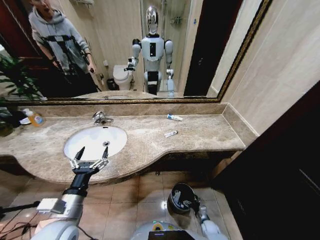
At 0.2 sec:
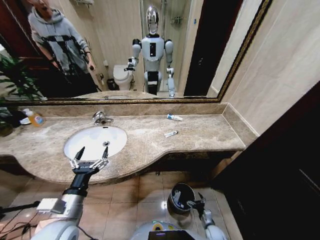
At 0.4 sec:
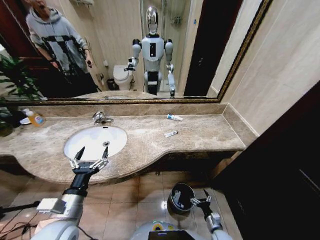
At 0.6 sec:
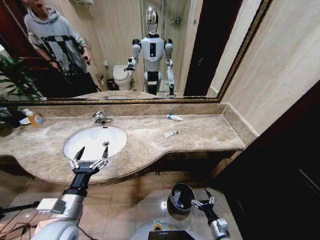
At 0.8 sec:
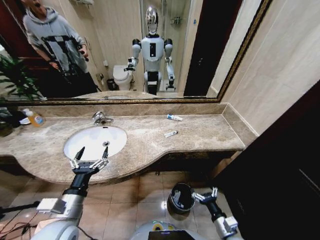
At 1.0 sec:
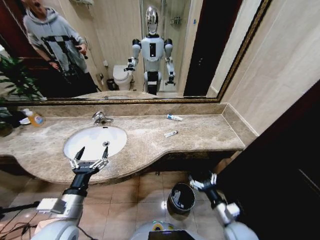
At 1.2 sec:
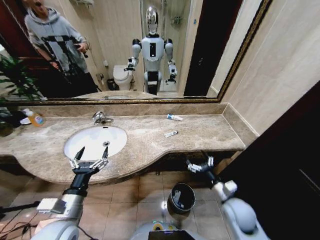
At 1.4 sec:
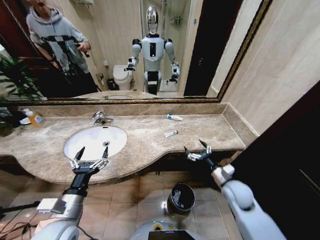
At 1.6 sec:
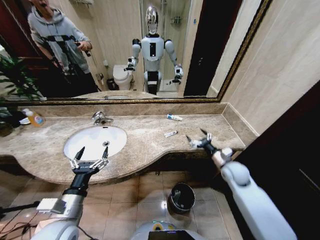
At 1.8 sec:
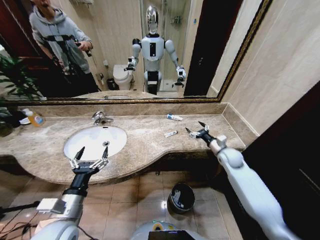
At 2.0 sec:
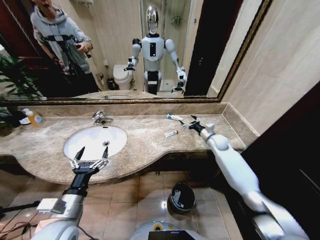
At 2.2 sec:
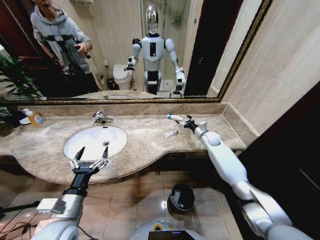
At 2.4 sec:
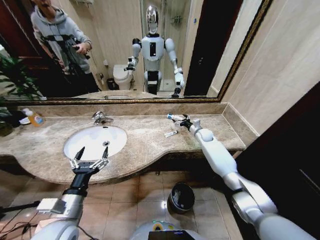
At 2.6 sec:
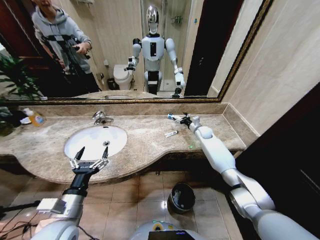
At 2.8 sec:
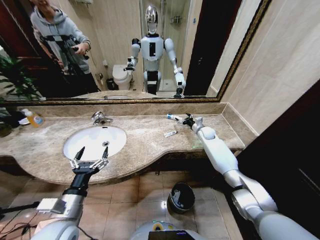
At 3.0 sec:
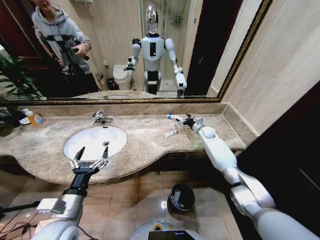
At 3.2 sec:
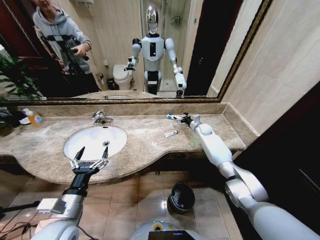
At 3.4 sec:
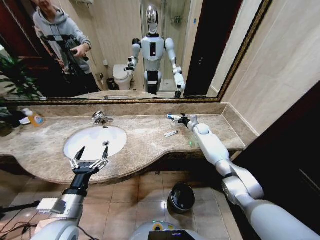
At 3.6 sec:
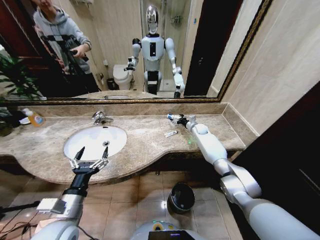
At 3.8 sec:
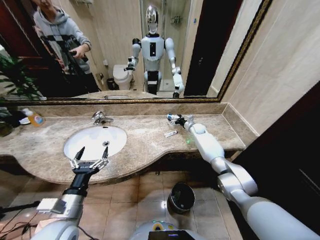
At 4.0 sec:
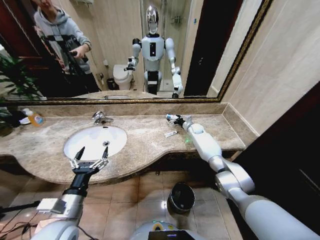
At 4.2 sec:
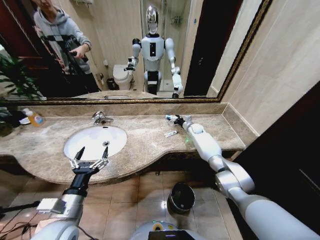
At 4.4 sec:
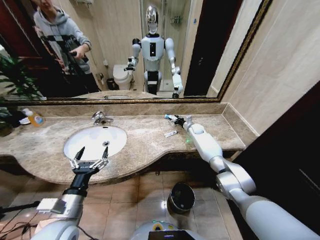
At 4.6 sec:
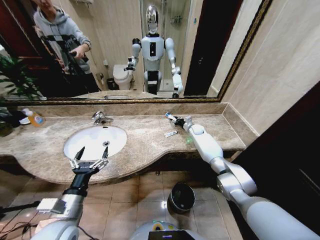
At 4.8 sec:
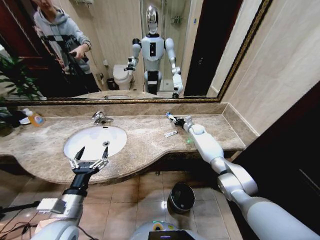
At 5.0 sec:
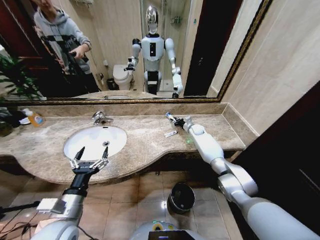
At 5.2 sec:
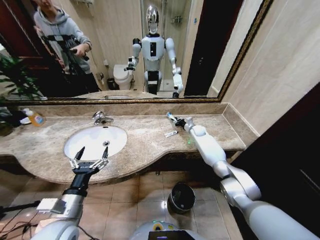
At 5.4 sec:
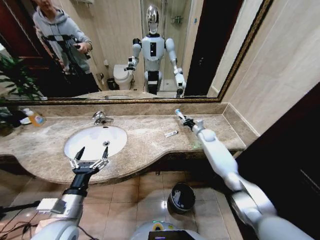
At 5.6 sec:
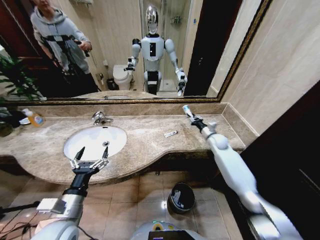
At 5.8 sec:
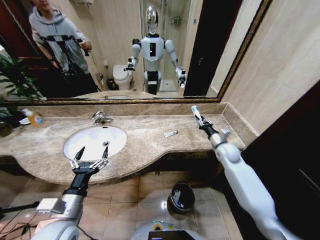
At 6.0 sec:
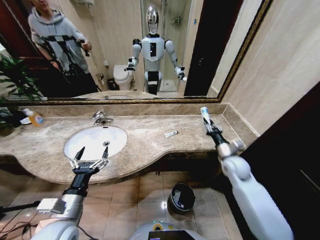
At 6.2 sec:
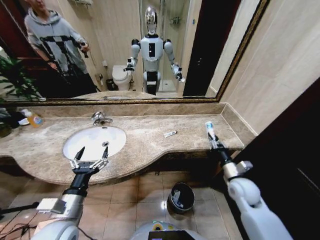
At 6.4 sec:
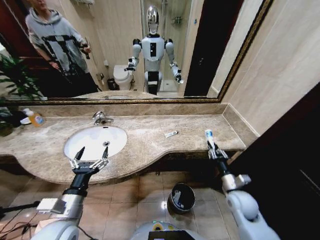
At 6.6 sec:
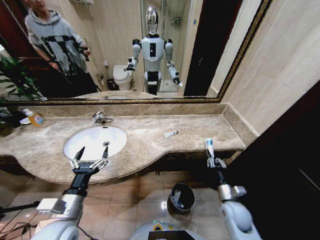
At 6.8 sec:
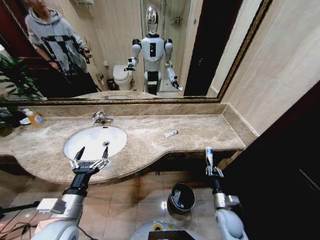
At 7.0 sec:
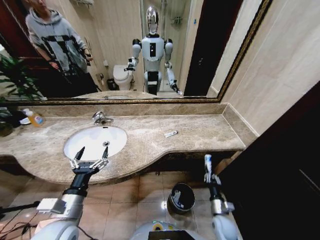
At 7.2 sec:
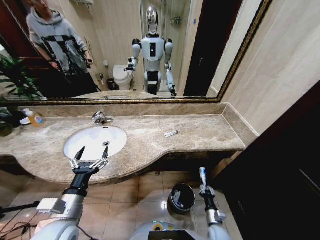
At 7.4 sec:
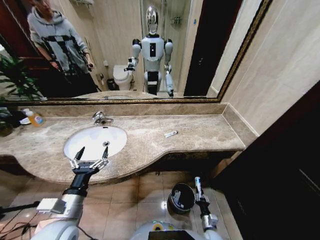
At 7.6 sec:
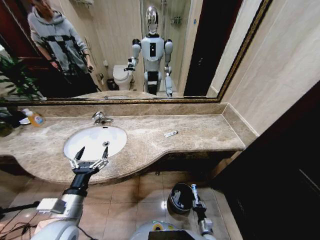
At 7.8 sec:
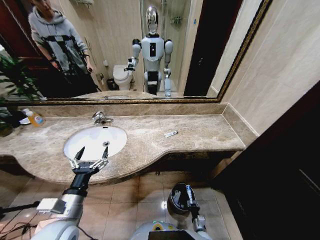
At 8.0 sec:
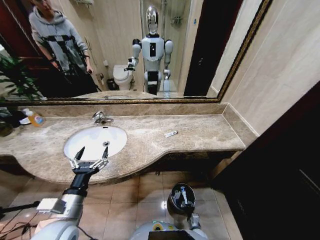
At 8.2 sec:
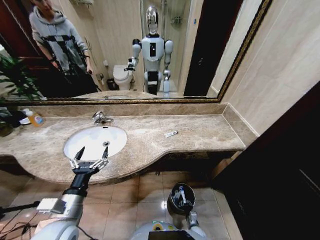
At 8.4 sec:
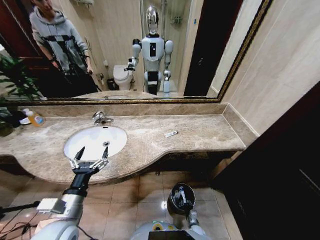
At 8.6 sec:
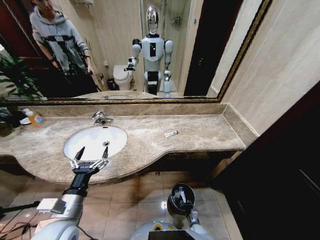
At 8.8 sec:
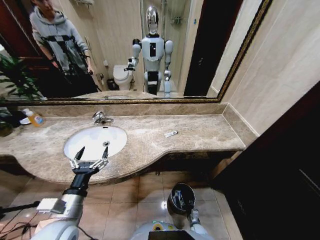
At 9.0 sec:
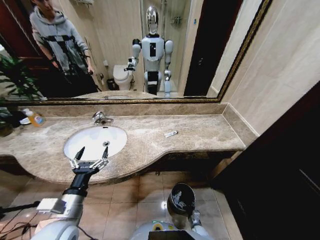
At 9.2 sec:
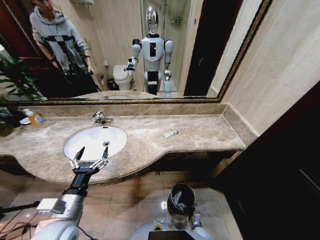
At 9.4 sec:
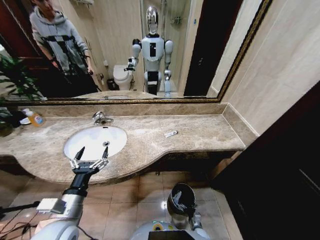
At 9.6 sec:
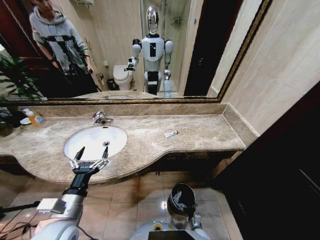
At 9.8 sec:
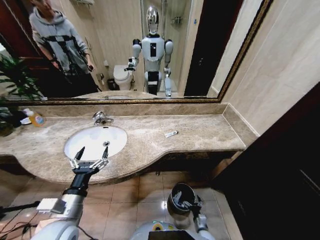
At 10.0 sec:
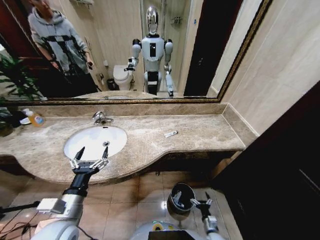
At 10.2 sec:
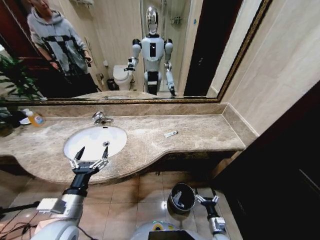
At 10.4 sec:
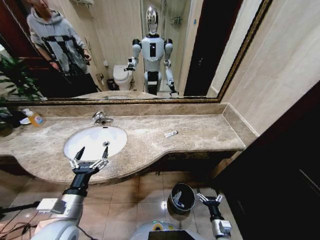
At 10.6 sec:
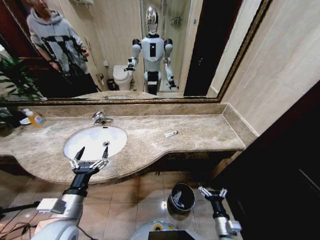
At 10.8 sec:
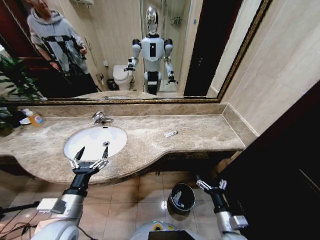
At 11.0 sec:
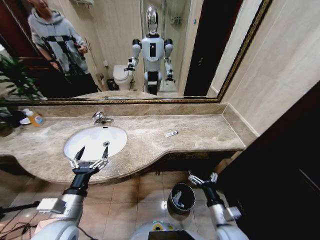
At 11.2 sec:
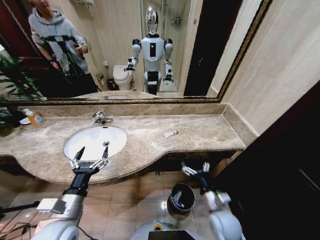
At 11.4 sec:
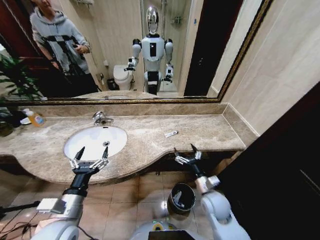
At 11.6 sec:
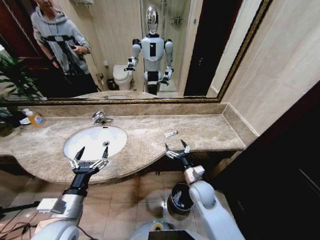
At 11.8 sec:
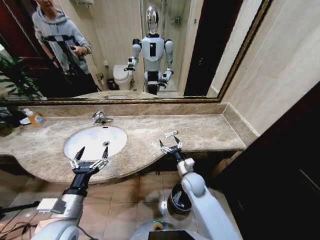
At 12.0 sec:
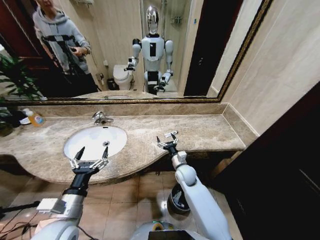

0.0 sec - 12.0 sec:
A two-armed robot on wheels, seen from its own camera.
Task of the whole recording: Pick up the trash from the sink and place it in the trash bin.
0.0 sec - 1.6 sec: The right gripper shifts approximately 40 cm upward and forward.
1.6 sec - 3.0 sec: The right gripper is displaced forward by approximately 25 cm.
3.0 sec - 4.4 sec: The right gripper ends up approximately 5 cm from where it was, and closes up.
4.4 sec - 6.0 sec: The right gripper travels backward by some 30 cm, and closes its fingers.
6.0 sec - 7.6 sec: The right gripper travels downward and backward by roughly 50 cm.
7.6 sec - 9.0 sec: The right gripper changes place by some 5 cm, and opens up.
9.0 sec - 10.4 sec: The right gripper goes approximately 20 cm upward.
10.4 sec - 12.0 sec: The right gripper goes some 35 cm forward, upward and to the left.

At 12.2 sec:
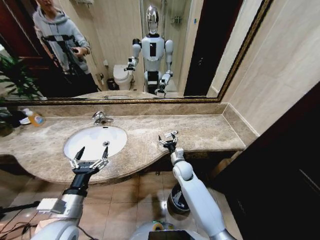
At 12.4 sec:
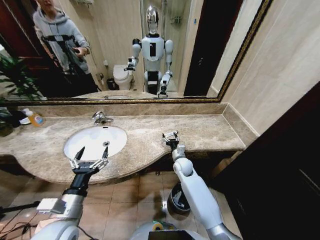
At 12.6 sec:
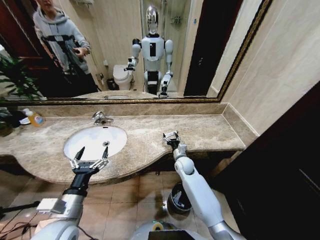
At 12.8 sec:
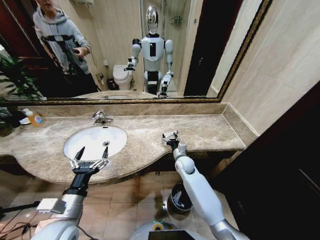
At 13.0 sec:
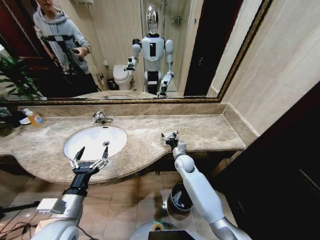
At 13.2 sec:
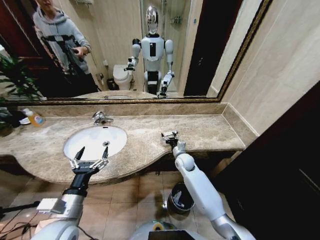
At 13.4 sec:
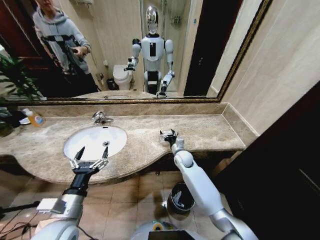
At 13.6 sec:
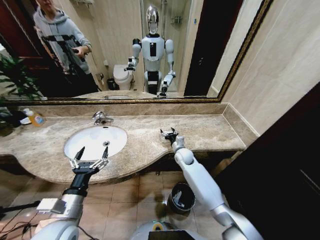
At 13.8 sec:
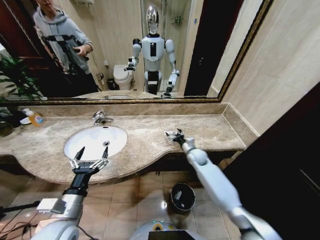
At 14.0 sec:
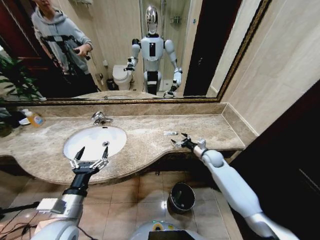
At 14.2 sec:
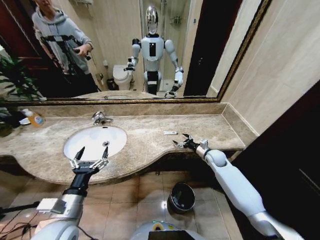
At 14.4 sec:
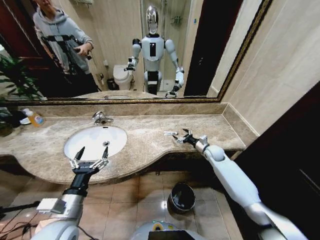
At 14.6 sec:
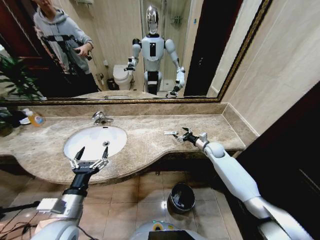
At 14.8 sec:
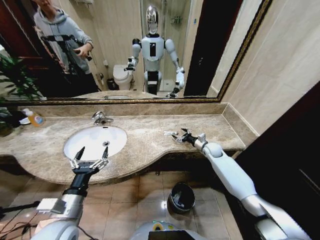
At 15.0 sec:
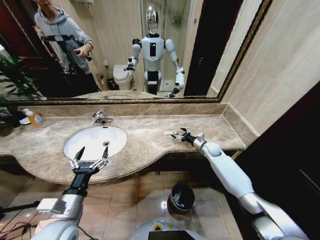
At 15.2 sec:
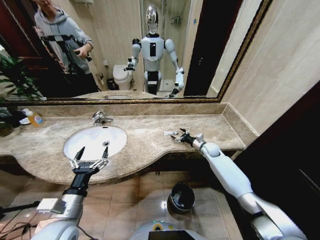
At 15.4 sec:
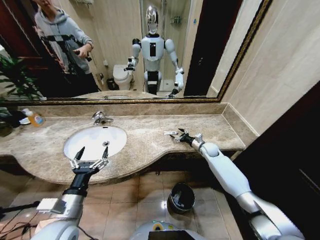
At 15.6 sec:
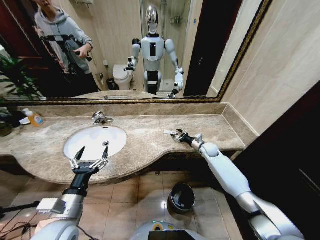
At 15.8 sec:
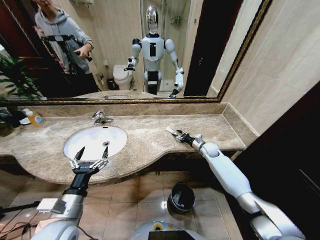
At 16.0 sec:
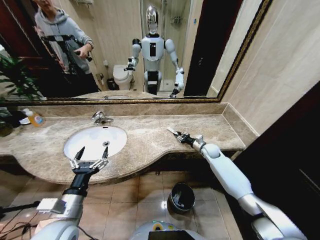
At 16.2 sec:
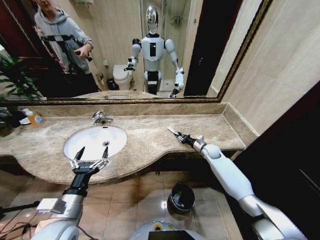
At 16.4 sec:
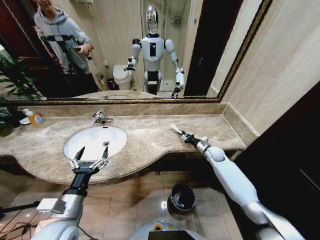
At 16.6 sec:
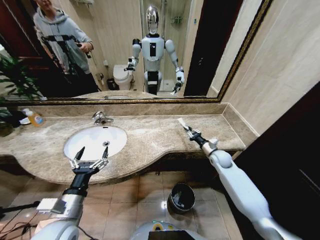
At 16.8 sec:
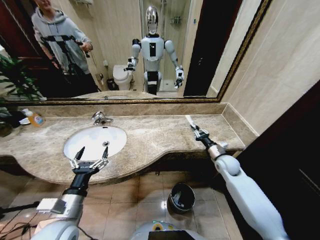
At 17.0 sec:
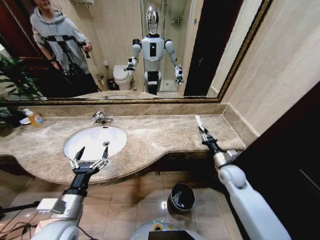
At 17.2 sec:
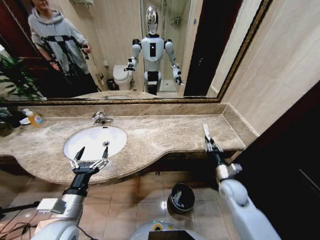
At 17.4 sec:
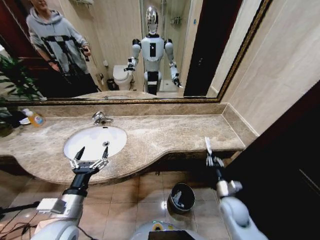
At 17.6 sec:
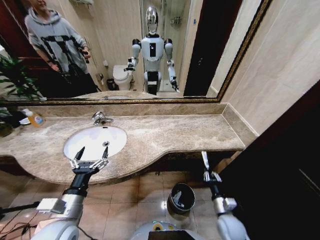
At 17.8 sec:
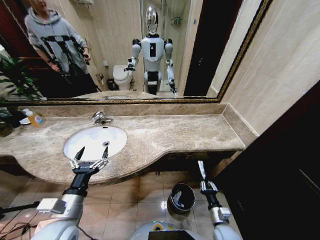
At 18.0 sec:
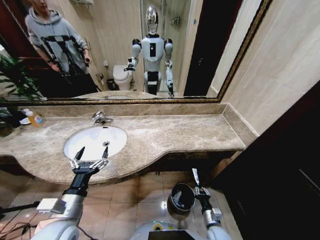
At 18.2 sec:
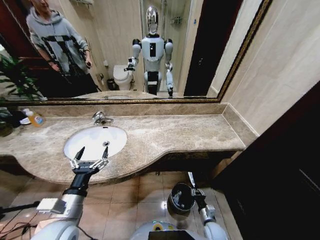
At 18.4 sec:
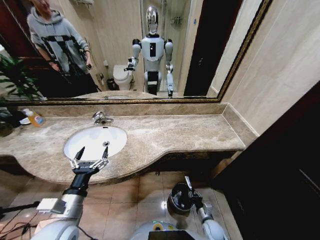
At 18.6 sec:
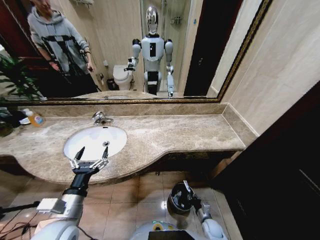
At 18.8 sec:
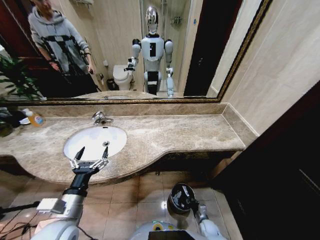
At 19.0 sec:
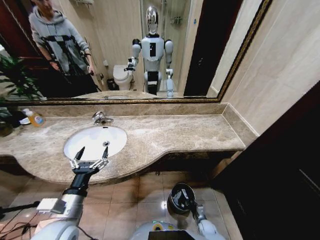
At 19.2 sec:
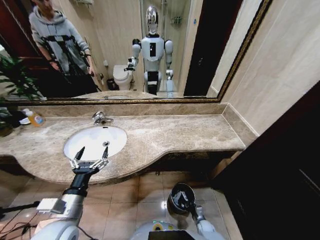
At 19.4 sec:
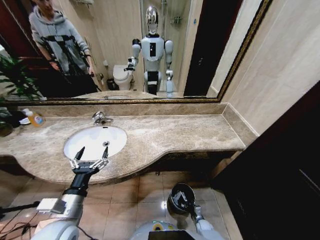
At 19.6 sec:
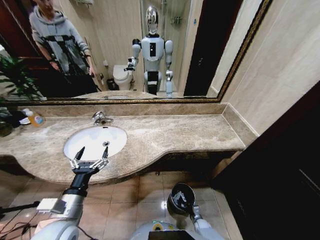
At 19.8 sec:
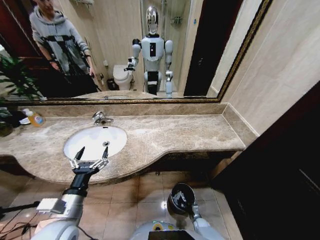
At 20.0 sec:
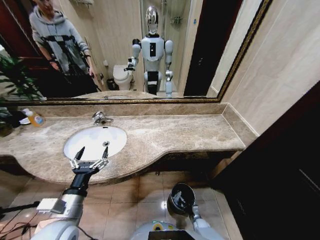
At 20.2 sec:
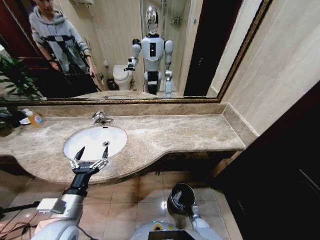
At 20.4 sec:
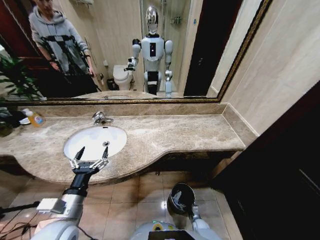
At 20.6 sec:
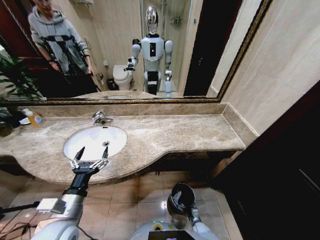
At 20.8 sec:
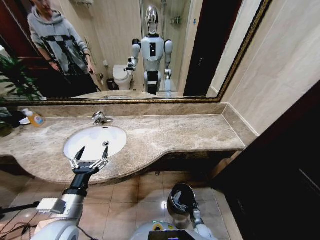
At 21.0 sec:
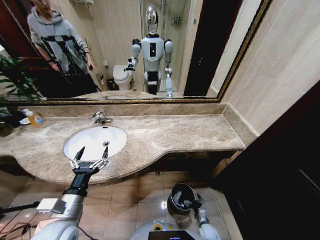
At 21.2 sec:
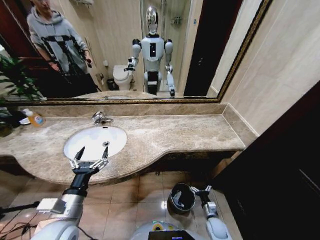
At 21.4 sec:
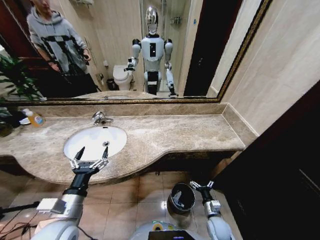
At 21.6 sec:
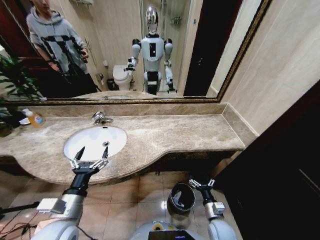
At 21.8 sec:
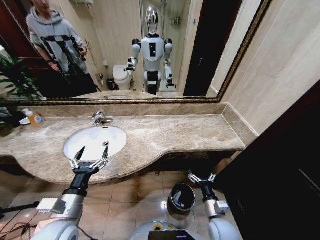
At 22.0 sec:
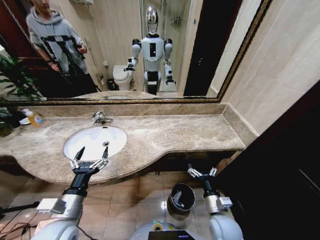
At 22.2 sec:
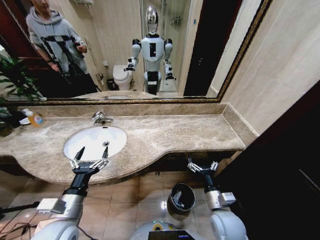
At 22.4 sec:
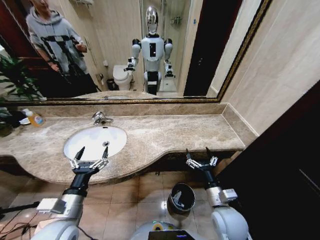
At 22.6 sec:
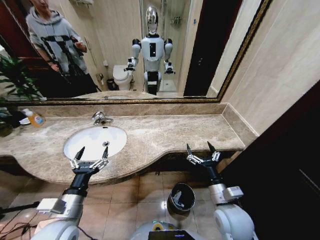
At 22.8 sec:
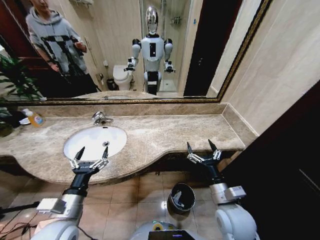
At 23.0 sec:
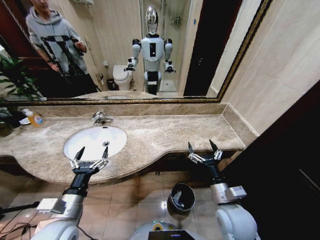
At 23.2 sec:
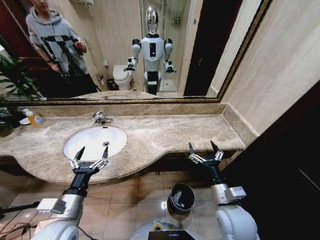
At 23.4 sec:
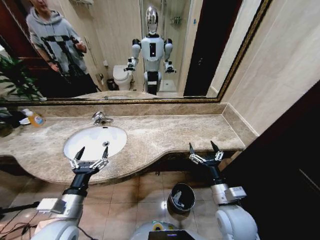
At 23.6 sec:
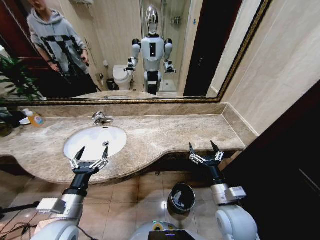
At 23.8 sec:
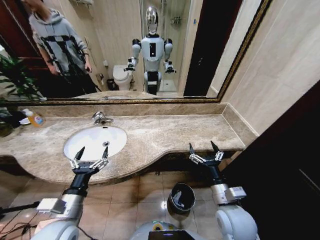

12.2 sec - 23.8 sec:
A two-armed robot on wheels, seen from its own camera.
Task of the whole recording: Pick up the trash from the sink and place it in the trash bin.
12.2 sec - 13.6 sec: The right gripper heads forward, covering approximately 5 cm.
13.6 sec - 15.0 sec: The right gripper moves to the right, roughly 15 cm.
15.0 sec - 16.6 sec: The right gripper is displaced backward by roughly 5 cm, and closes.
16.6 sec - 18.0 sec: The right gripper heads backward and downward, covering about 35 cm.
18.0 sec - 19.4 sec: The right gripper is displaced downward by about 20 cm.
19.4 sec - 21.0 sec: The right gripper changes place by some 5 cm, and opens its fingers.
21.0 sec - 22.4 sec: The right gripper is displaced upward by some 35 cm.
22.4 sec - 23.8 sec: The grippers move only a little.
